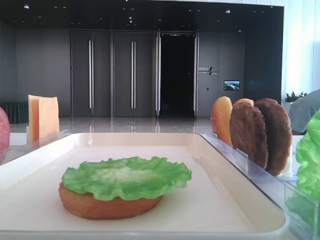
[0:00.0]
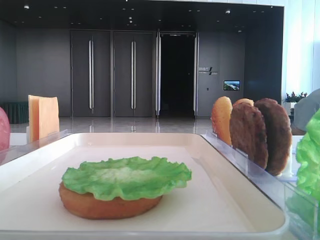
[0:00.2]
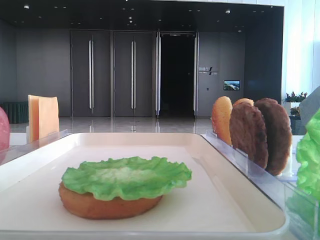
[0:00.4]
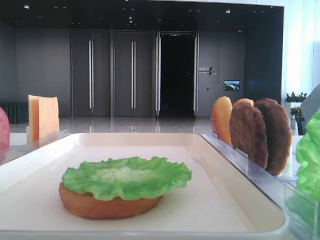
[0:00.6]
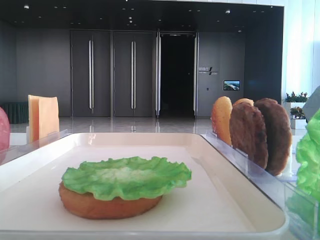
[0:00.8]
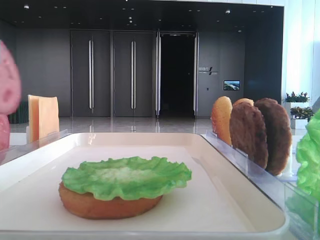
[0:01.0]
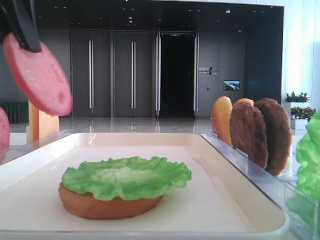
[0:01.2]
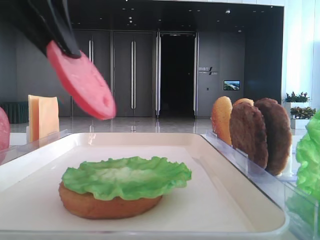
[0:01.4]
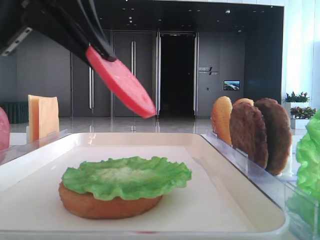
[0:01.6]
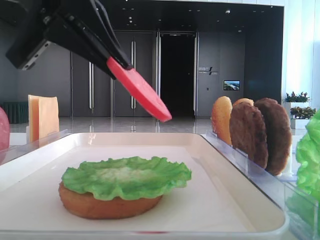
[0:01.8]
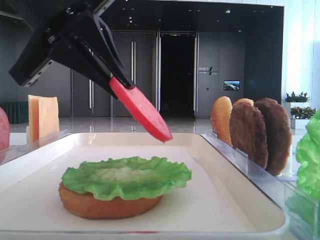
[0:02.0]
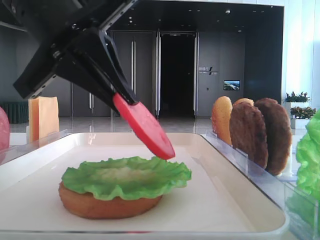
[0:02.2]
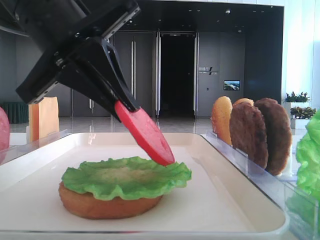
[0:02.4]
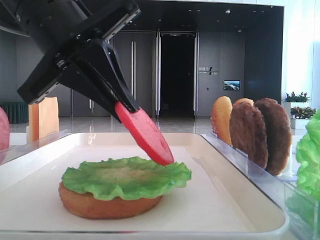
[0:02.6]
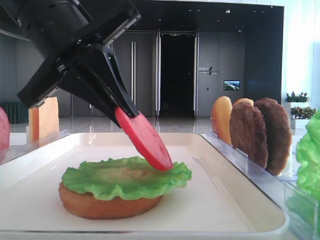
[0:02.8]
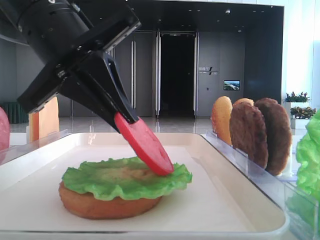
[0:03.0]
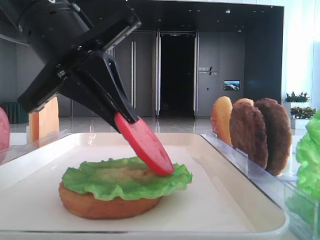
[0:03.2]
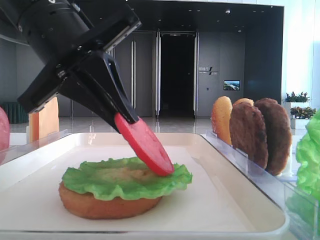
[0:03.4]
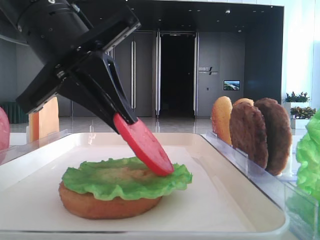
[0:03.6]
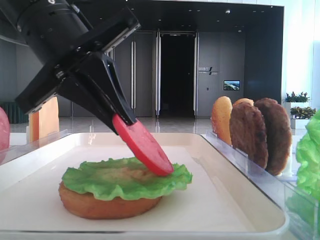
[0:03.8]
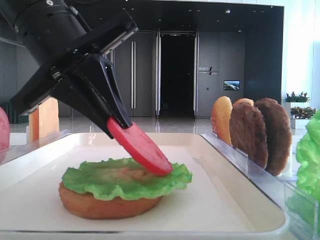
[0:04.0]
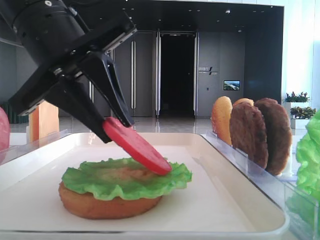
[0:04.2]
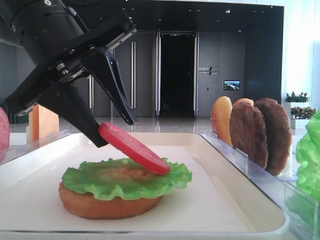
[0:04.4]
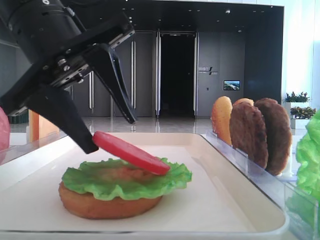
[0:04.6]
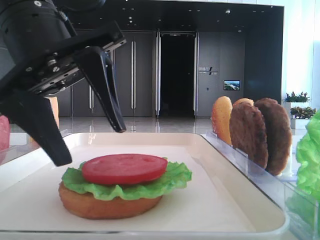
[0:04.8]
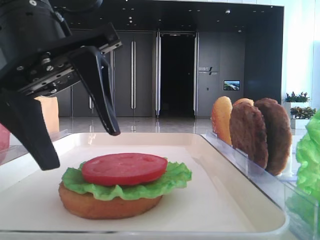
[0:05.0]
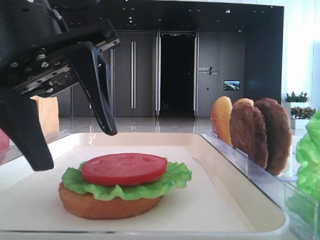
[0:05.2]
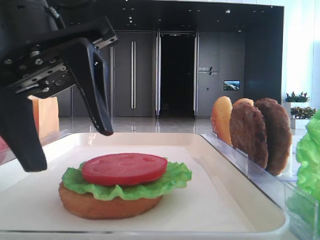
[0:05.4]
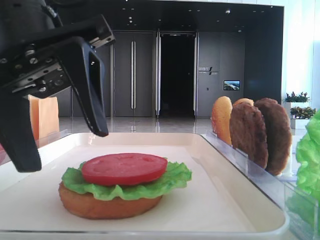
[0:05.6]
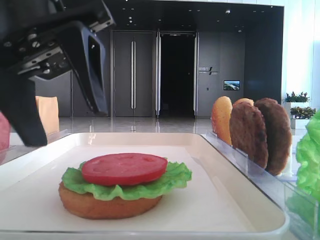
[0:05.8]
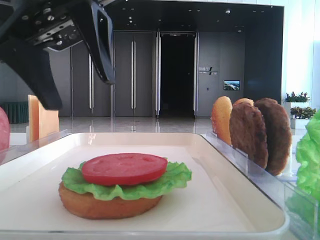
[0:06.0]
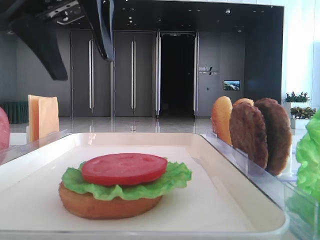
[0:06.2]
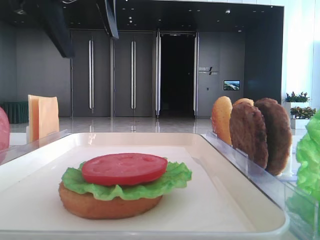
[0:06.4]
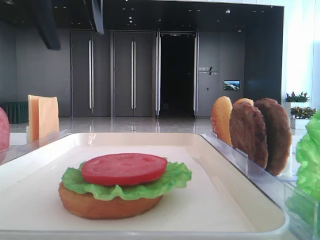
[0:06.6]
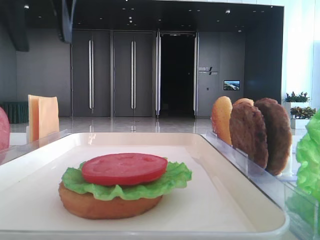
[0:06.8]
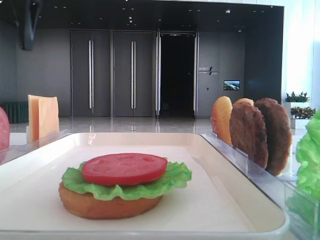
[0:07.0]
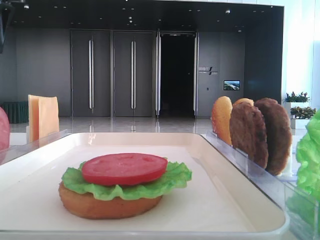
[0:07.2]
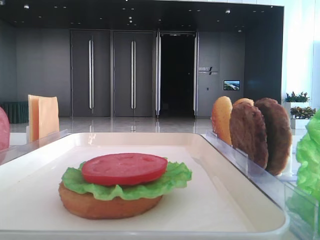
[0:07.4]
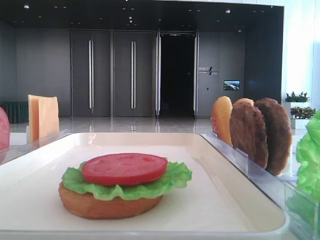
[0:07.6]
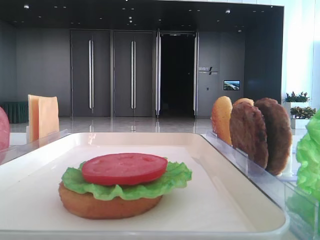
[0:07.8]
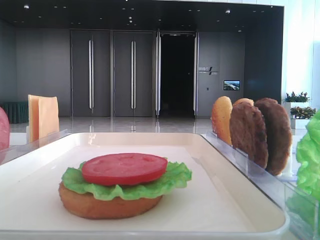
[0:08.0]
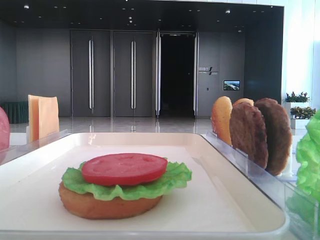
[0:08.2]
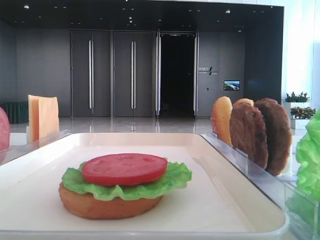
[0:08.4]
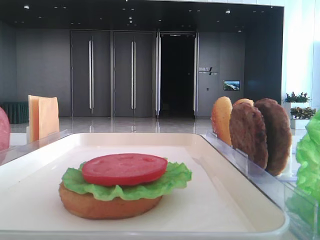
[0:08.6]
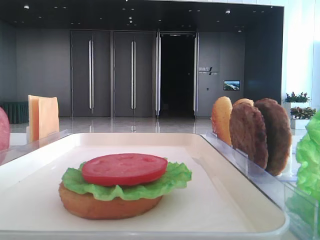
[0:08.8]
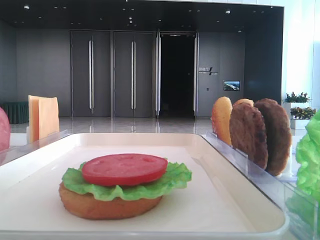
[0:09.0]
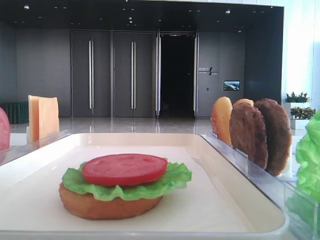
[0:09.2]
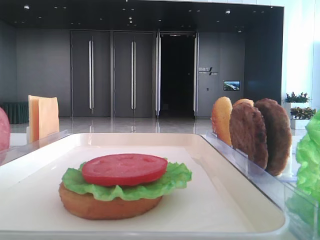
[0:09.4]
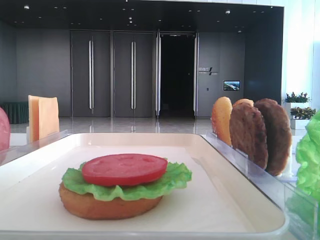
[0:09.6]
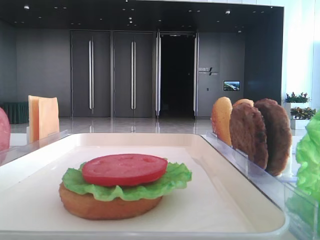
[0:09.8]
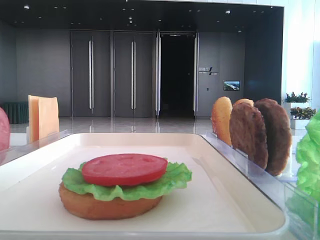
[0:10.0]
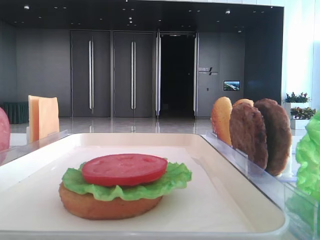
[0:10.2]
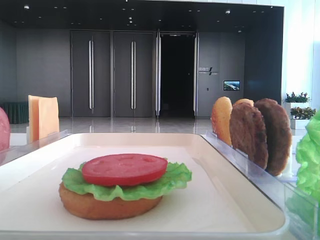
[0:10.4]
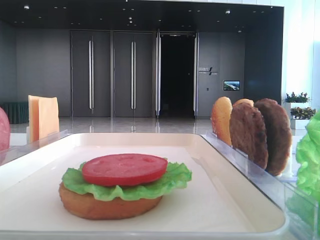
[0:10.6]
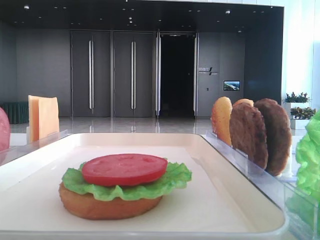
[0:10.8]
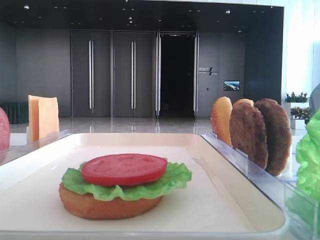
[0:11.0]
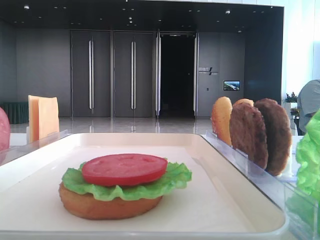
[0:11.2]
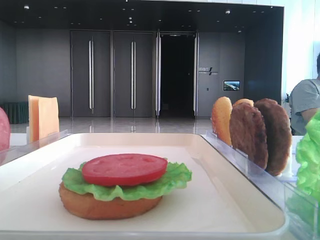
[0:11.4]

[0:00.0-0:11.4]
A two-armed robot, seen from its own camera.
Step, 0:00.0 to 0:04.6: Place the tomato slice on the lettuce leaf with the left hand.
0:00.0 to 0:01.4: The left gripper goes roughly 10 cm downward and to the right.
0:01.4 to 0:02.8: The left gripper goes some 5 cm downward.
0:02.8 to 0:04.2: The two grippers keep their place.
0:04.2 to 0:05.6: The left gripper opens.
0:05.6 to 0:07.2: The left gripper travels to the left, upward and forward by some 20 cm.

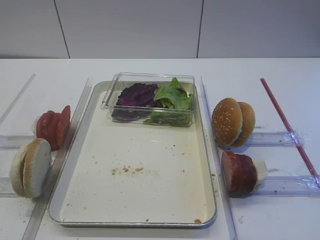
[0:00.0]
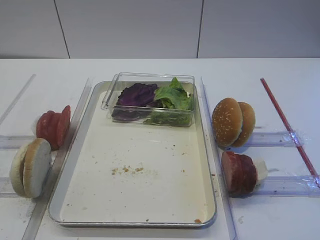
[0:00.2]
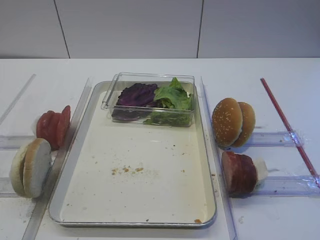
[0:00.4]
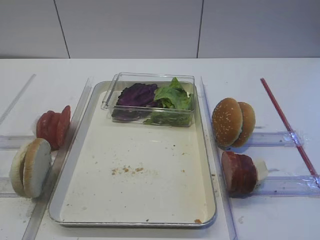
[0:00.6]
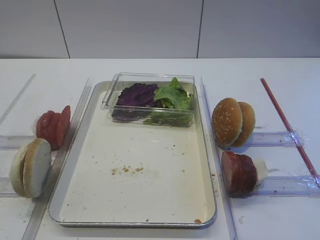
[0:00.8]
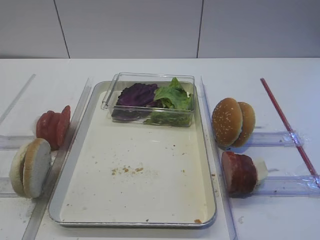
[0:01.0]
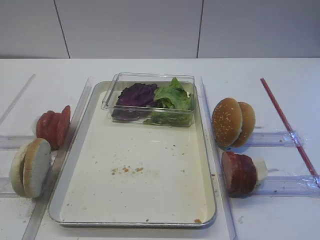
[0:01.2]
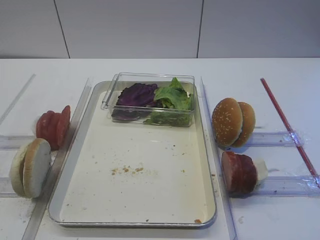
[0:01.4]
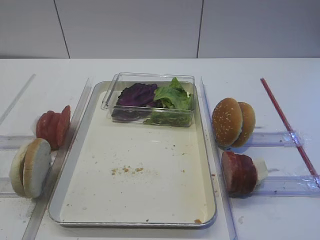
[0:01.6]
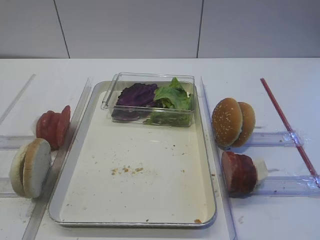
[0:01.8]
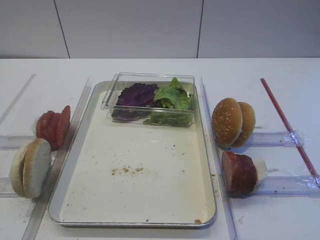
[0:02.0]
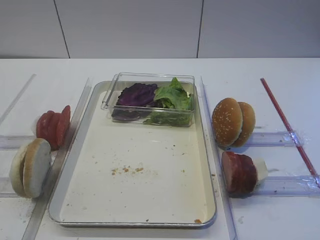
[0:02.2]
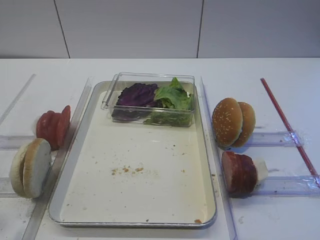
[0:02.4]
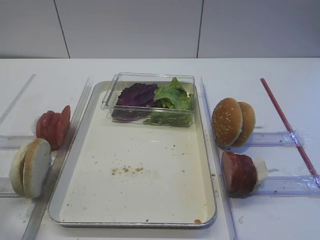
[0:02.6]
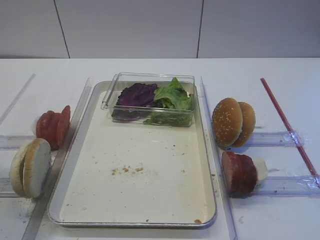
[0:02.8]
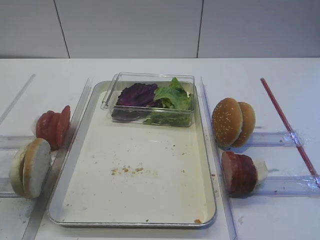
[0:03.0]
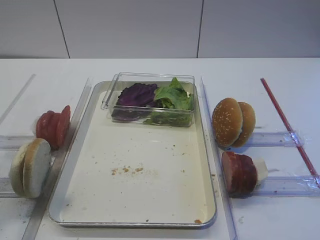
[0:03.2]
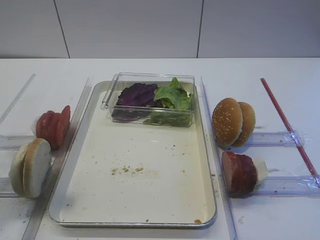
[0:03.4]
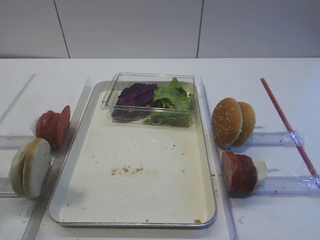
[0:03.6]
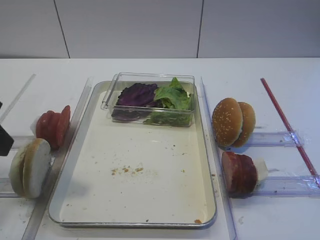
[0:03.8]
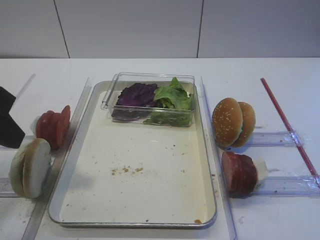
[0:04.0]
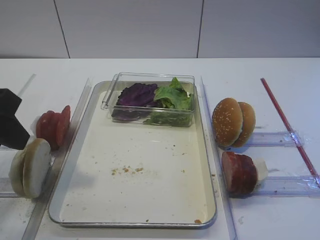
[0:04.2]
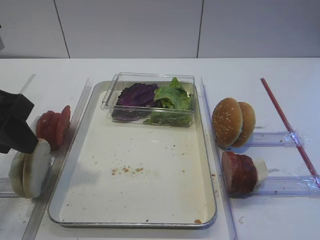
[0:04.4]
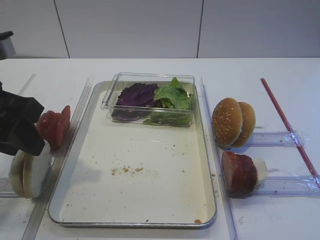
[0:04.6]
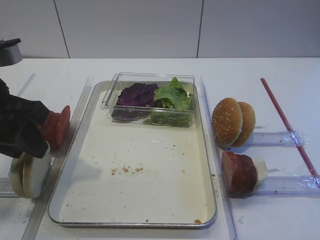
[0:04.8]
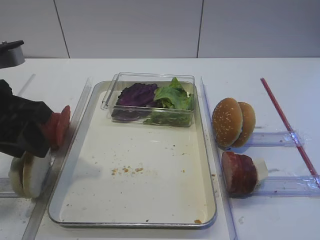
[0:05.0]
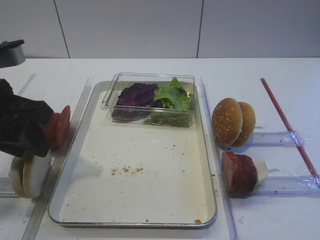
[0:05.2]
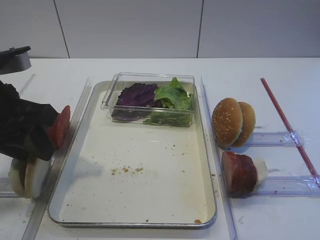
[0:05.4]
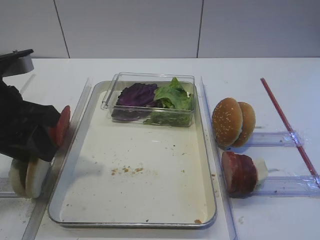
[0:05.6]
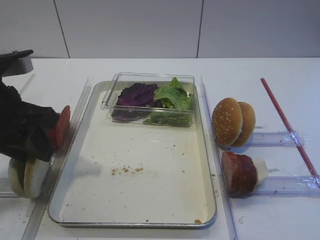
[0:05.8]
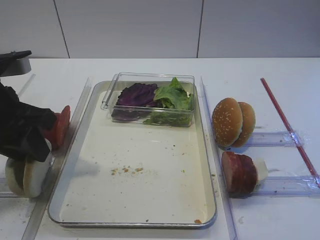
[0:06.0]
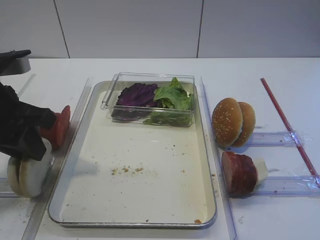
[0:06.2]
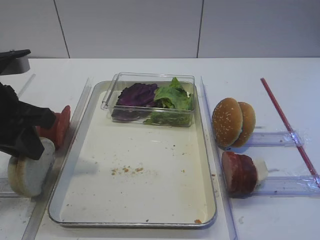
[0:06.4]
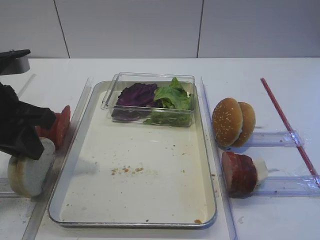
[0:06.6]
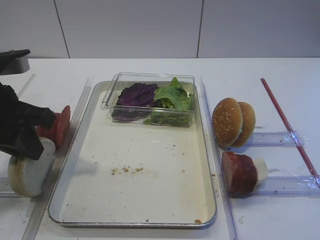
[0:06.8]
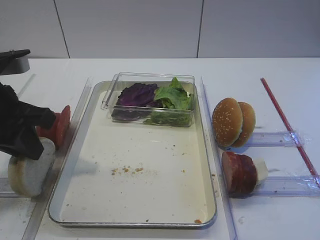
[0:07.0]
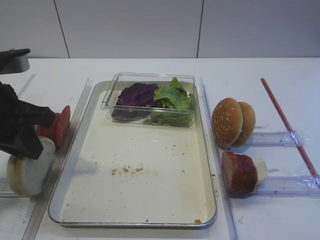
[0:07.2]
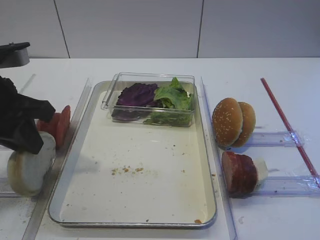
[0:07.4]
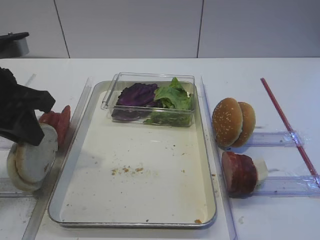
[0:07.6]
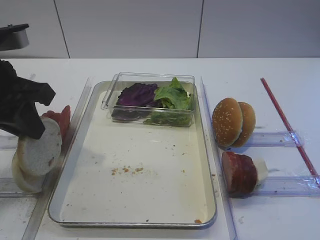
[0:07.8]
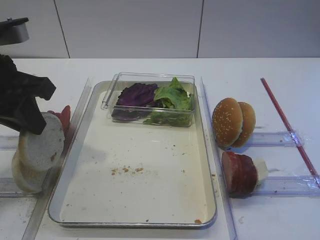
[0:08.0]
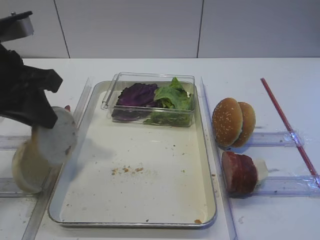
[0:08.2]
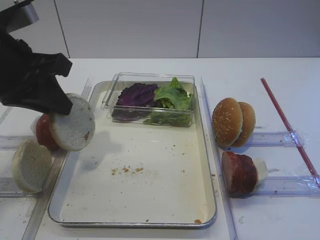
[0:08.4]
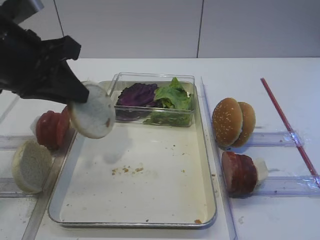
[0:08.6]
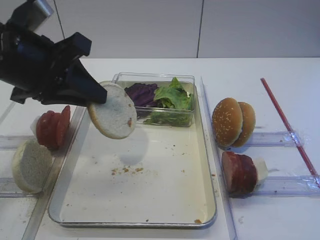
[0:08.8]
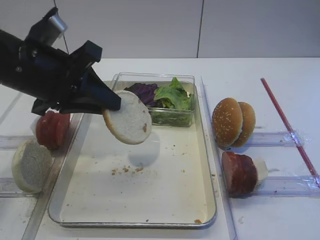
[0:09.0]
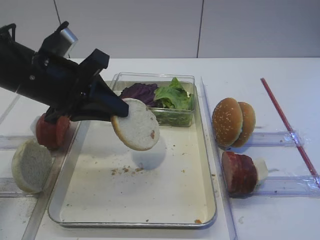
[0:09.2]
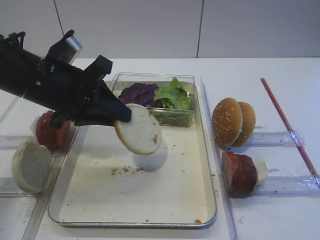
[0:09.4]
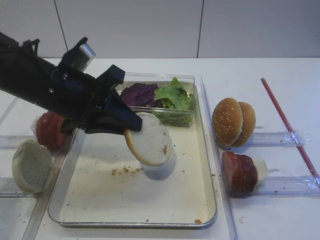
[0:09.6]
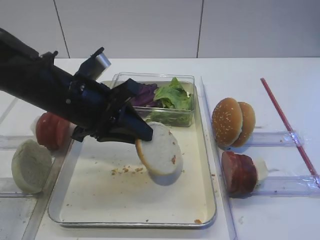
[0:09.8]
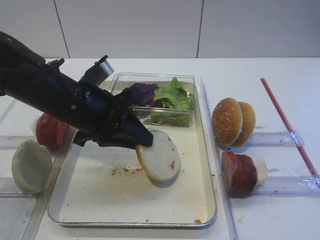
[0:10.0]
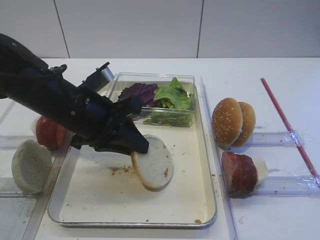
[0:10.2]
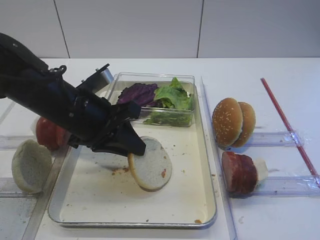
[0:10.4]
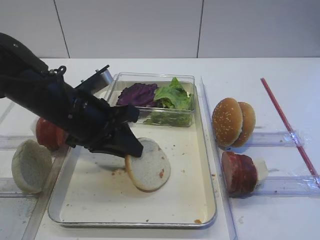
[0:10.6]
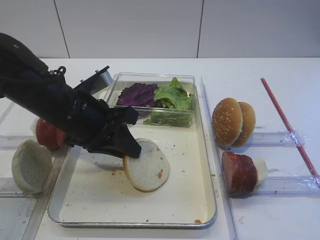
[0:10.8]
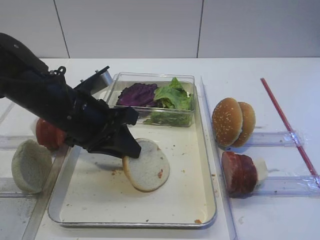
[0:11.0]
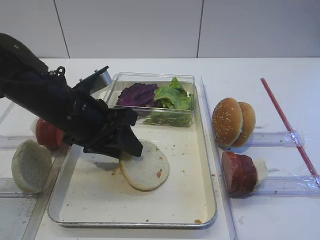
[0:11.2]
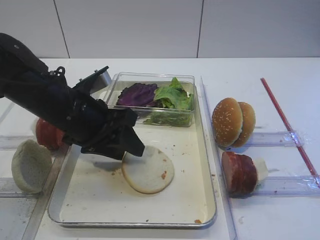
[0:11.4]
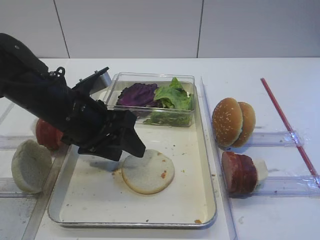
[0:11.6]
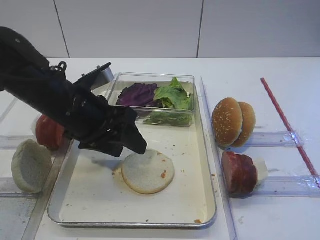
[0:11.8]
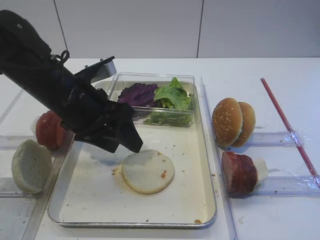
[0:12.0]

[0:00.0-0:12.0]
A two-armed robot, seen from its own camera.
Step, 0:00.0 to 0:07.6: Pick up the bread slice with the left gripper.
Step, 0:08.0 to 0:12.0: Place the bread slice on the tray with the left gripper.
0:01.6 to 0:03.0: The left gripper shifts some 15 cm forward and upward.
0:03.0 to 0:04.4: The left gripper is displaced forward by approximately 10 cm, and closes up.
0:04.4 to 0:07.6: There are only small adjustments of the grippers.
0:07.6 to 0:09.0: The left gripper goes about 5 cm to the right.
0:09.0 to 0:10.4: The left gripper travels downward by roughly 5 cm.
0:10.4 to 0:12.0: The left gripper opens.
